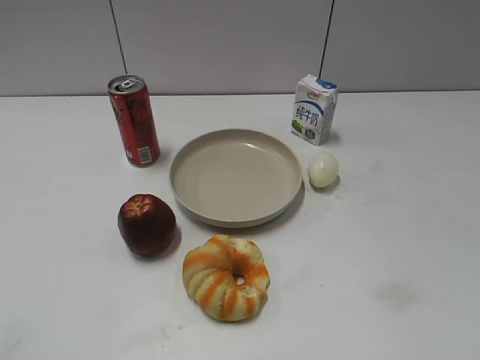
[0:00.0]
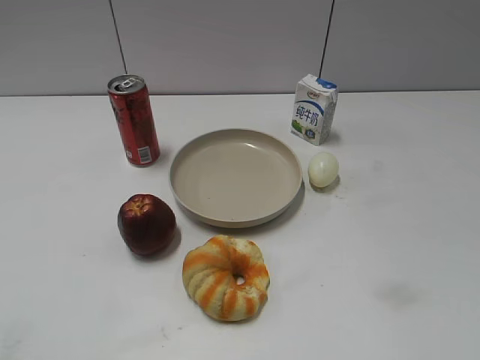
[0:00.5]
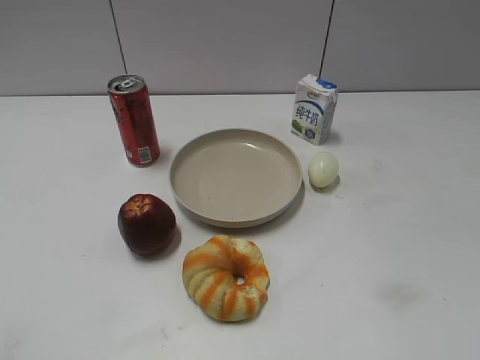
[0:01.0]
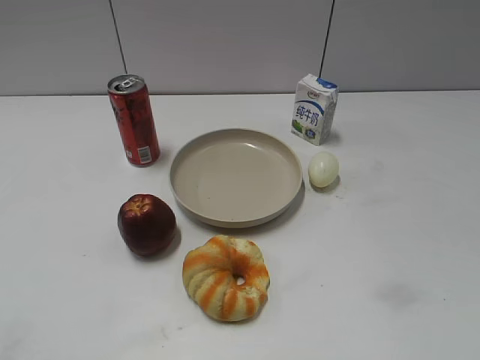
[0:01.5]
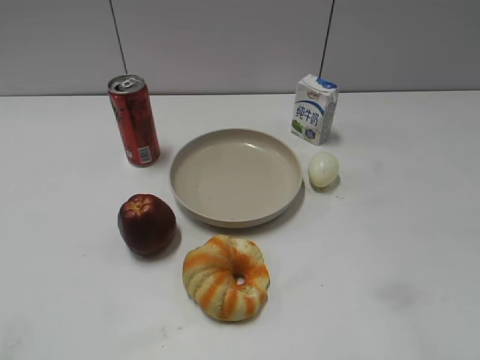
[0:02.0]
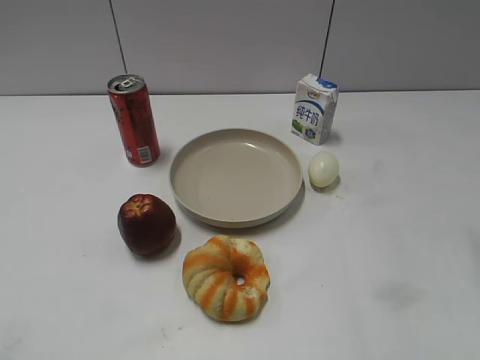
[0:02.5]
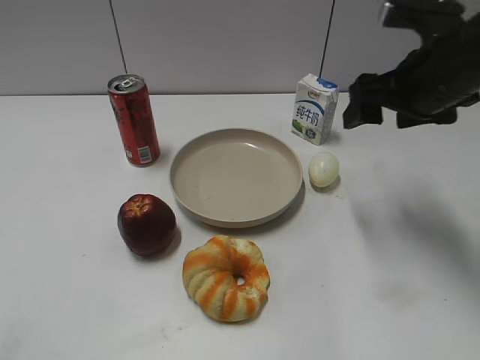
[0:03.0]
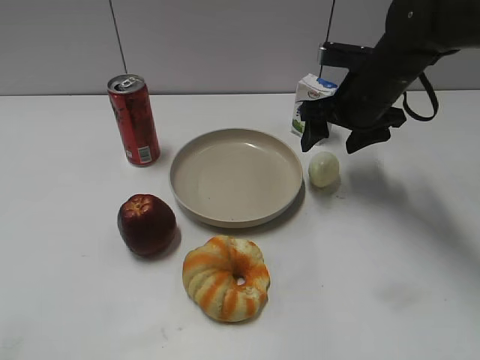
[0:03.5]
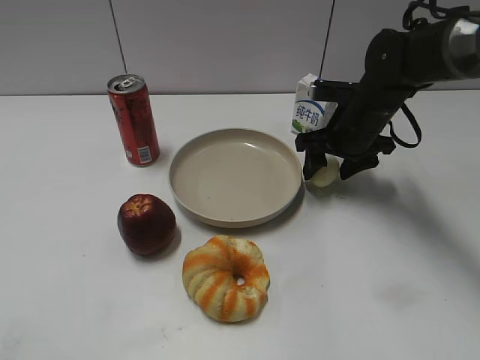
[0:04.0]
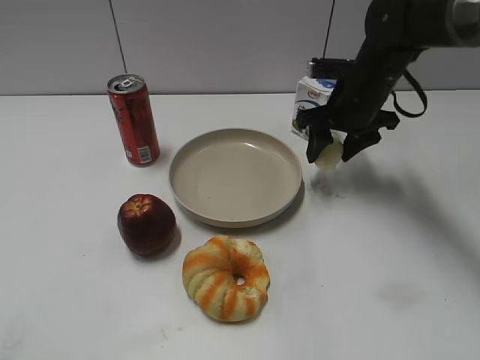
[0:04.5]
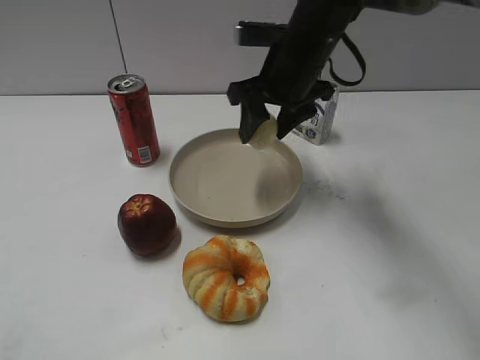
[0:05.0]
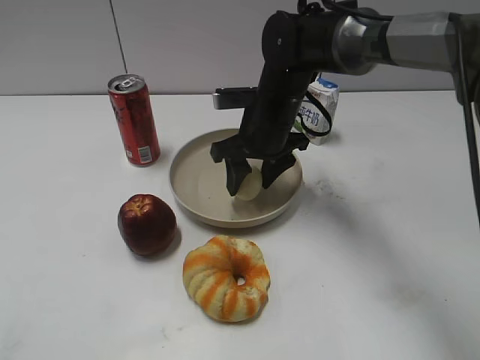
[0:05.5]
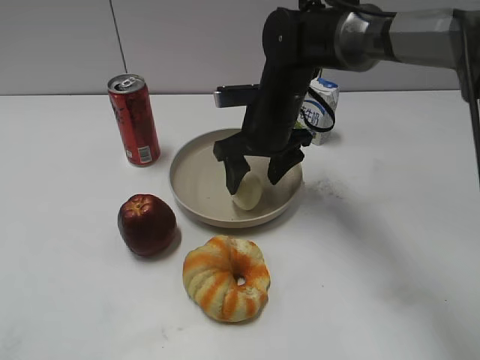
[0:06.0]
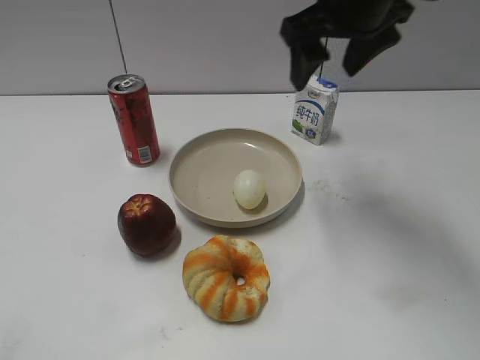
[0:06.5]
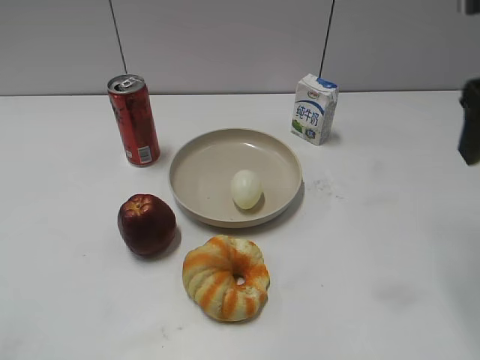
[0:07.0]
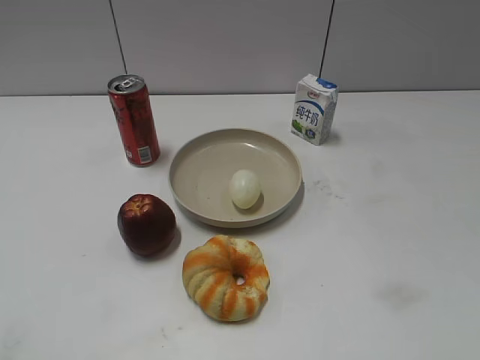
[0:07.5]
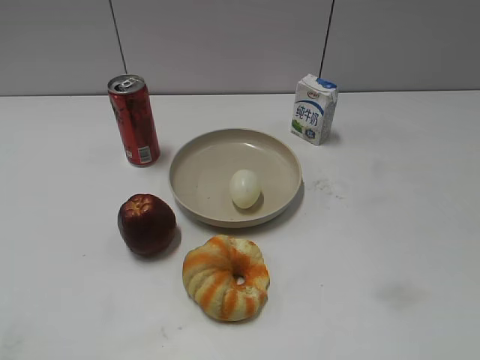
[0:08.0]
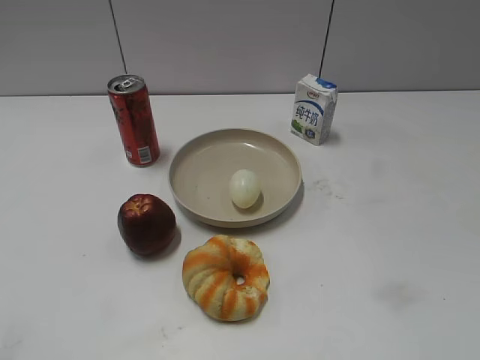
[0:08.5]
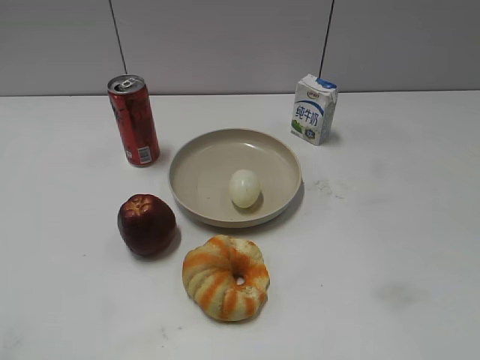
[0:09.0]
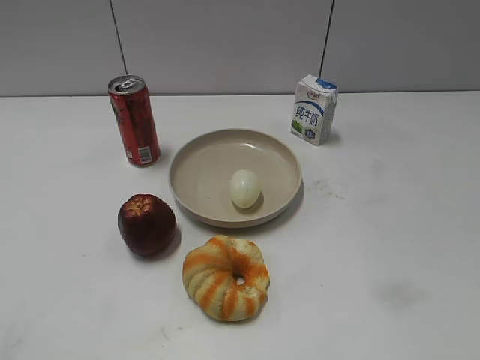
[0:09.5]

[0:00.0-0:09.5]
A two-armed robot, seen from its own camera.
Step, 0:01.5 to 0:04.0: Grasp the egg with right gripper.
Step, 0:04.5 to 0:06.0: Place the egg on the plate with right gripper.
0:02.0 to 0:04.0: The right gripper goes some 40 cm forward and downward.
0:04.0 to 0:05.5: The right gripper shifts some 10 cm to the left, and closes.
0:05.5 to 0:07.5: The right gripper goes some 40 cm backward, to the right and upward, and opens its fingers.

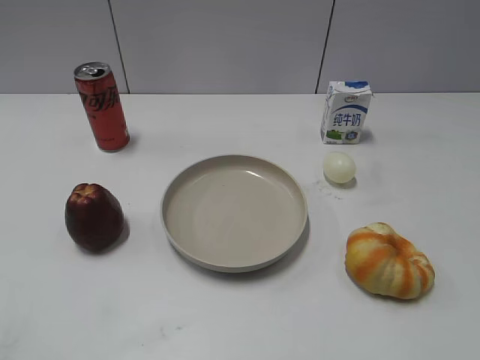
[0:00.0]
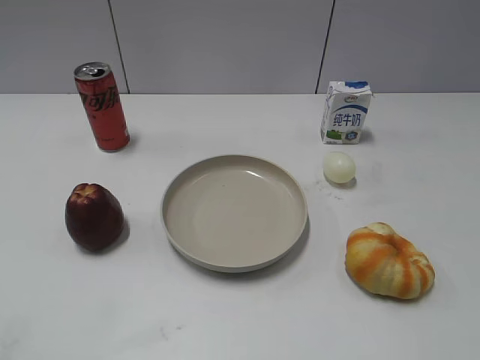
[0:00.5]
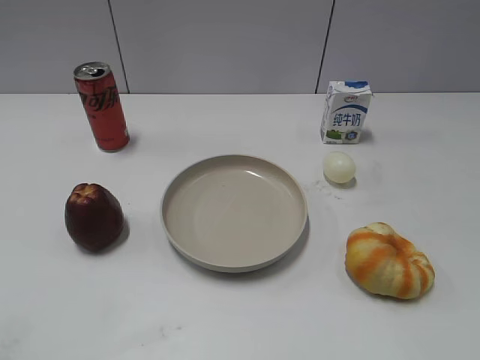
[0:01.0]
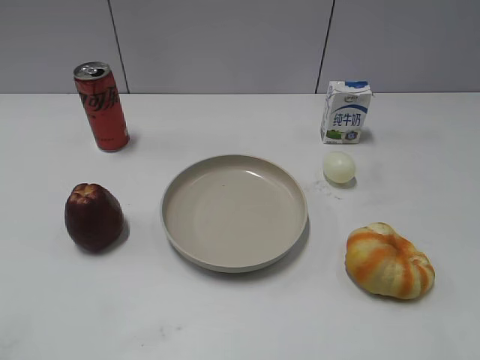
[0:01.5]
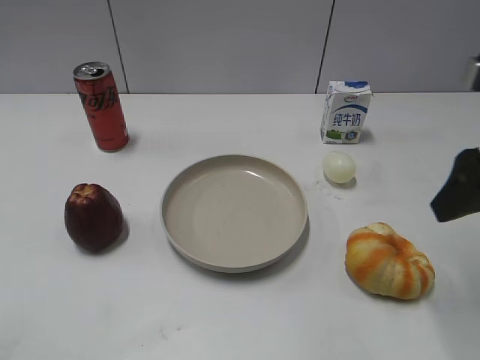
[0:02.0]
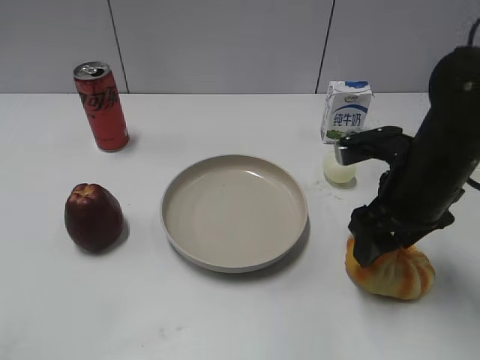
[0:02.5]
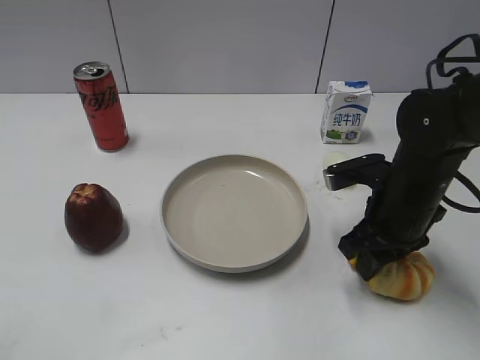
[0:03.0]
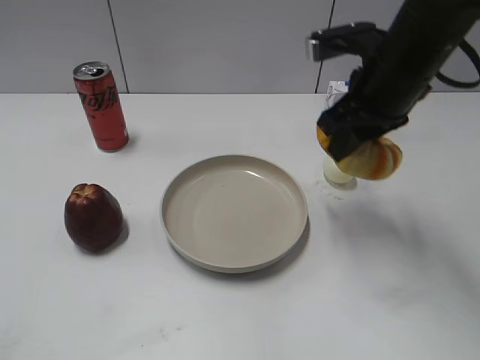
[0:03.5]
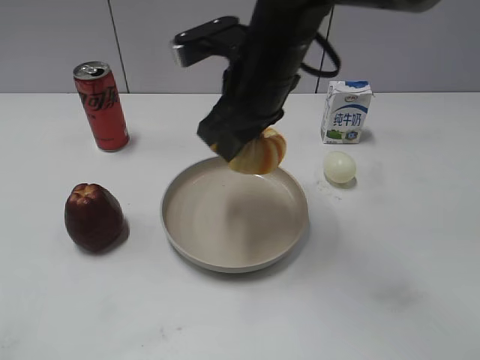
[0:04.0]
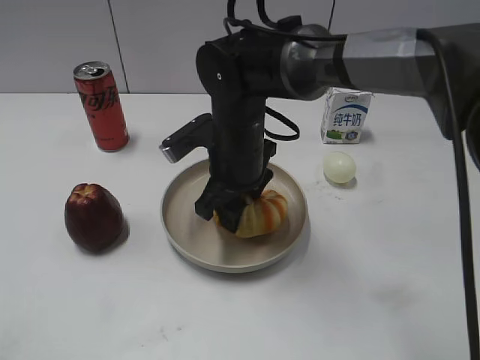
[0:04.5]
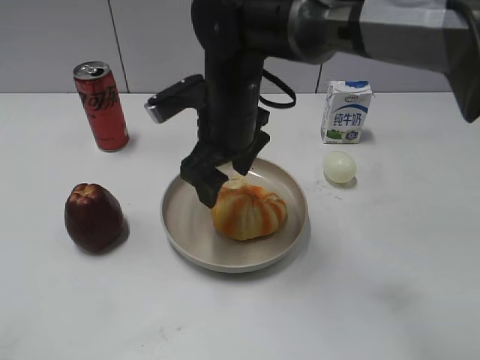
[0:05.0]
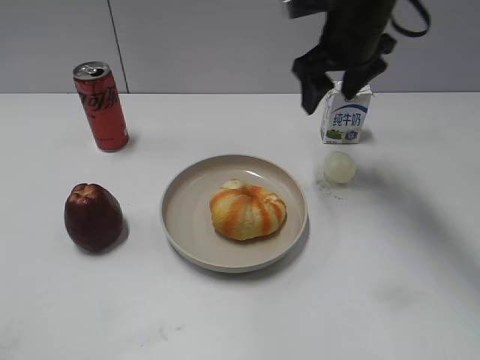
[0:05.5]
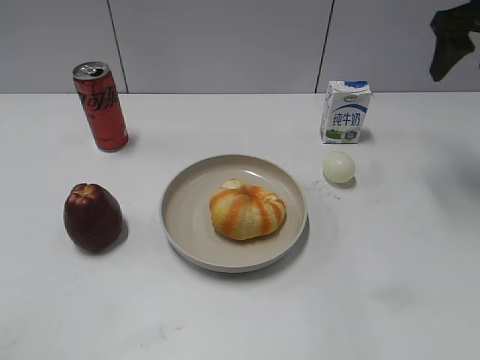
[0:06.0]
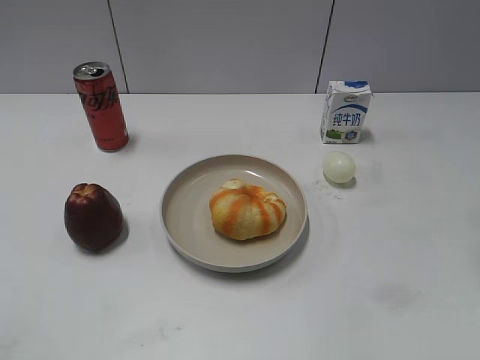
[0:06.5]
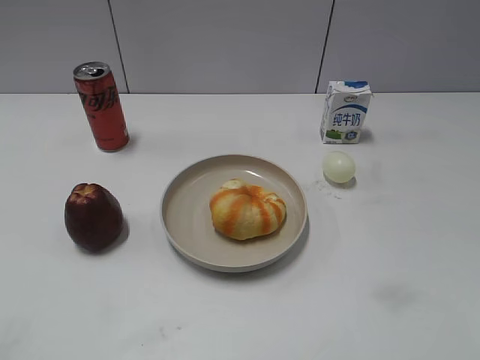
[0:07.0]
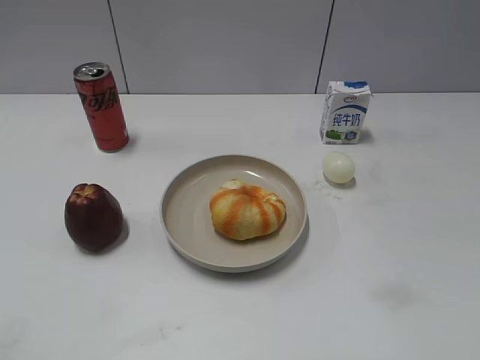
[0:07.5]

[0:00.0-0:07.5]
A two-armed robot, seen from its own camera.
Step, 0:01.0 to 0:03.0: Grasp the round bread with right gripper.
Step, 0:03.5 to 0:05.0: Place the round bread on the plate with right gripper.
0:02.0 to 0:04.0: The right gripper heads to the left and forward, covering roughly 25 cm, and closes.
0:04.0 to 0:05.5: The right gripper moves to the right and forward, about 15 cm, and opens.
0:05.5 to 0:07.5: The right gripper travels backward and to the right by approximately 40 cm.

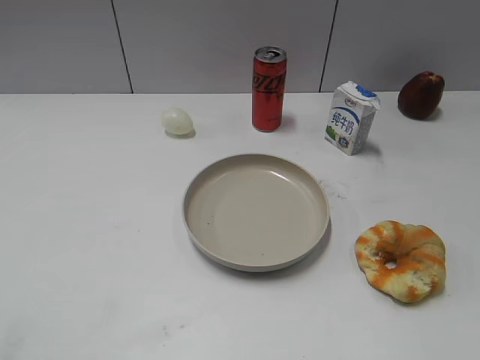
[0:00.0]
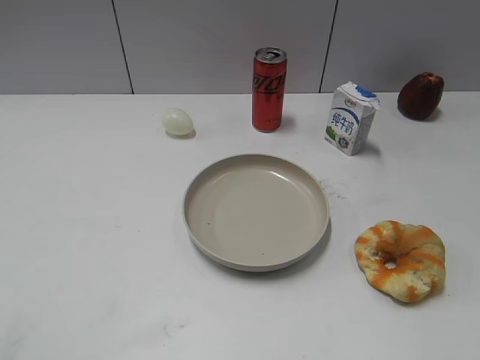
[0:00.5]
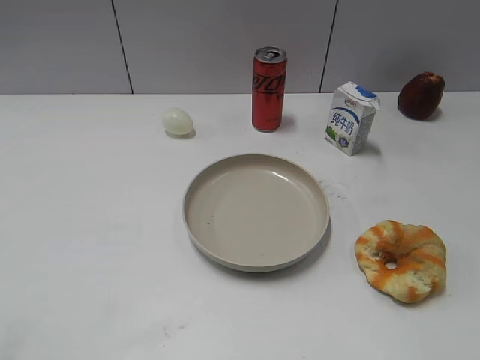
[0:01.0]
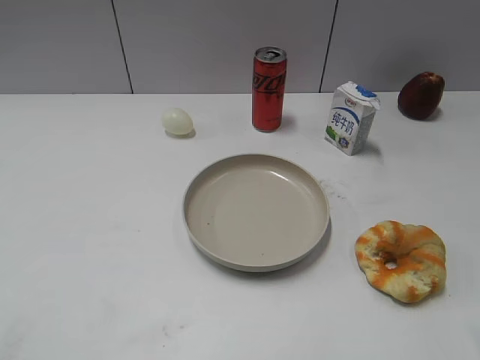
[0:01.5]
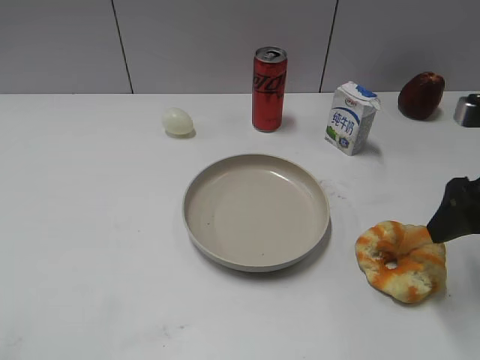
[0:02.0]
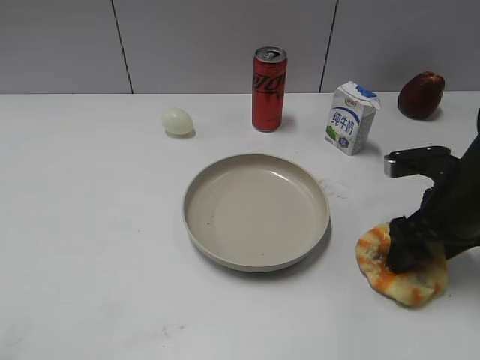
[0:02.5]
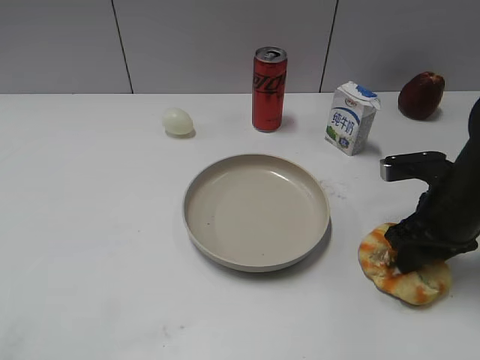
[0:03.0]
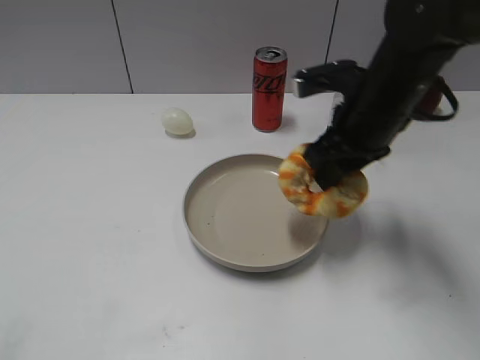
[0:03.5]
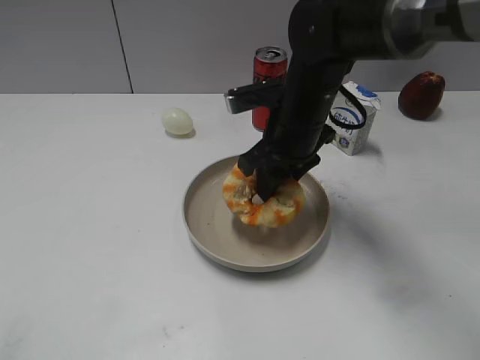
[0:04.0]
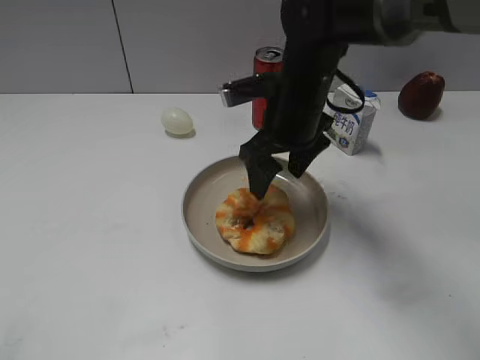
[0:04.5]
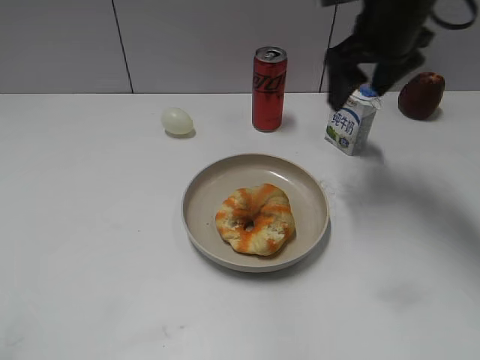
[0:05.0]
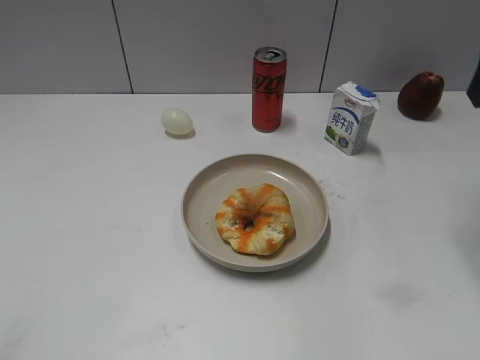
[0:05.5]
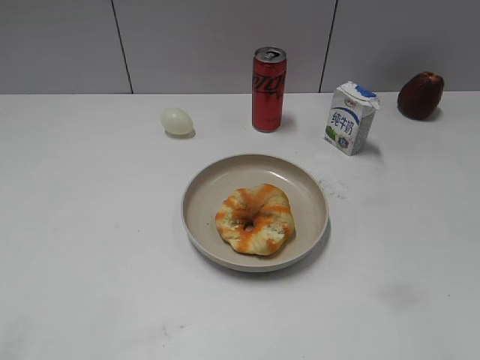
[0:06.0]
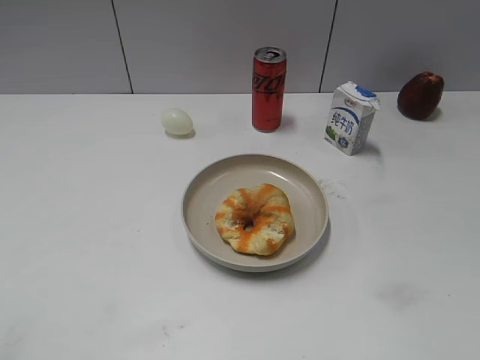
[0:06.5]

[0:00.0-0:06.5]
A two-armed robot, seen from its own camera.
Step, 0:00.0 to 0:03.0: Grasp the round bread with right gripper.
Step, 0:03.5 to 0:04.5: Place the round bread on the plate with right gripper.
0:02.0 to 0:04.5: The right gripper travels to the left and forward by approximately 25 cm, and closes and opens again.
0:04.5 to 0:06.5: The right gripper moves backward and to the right, about 40 cm.
